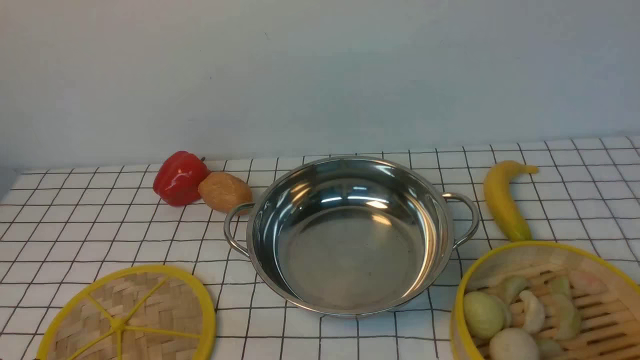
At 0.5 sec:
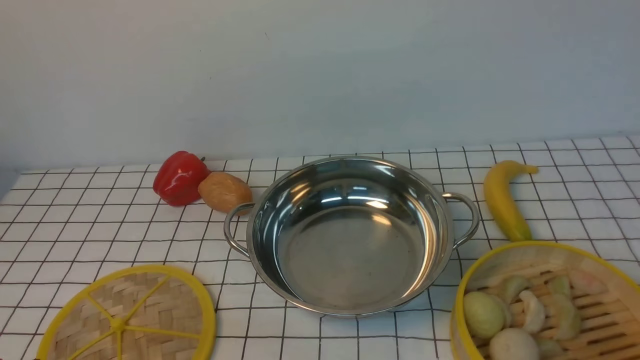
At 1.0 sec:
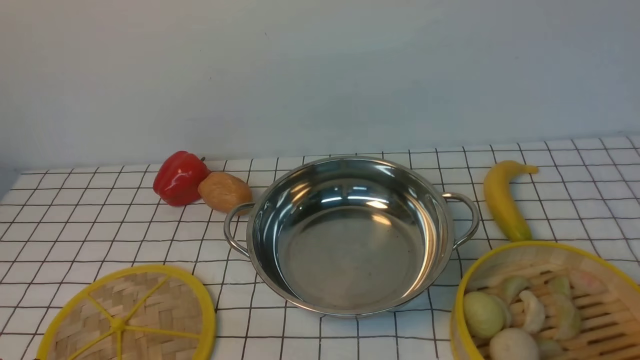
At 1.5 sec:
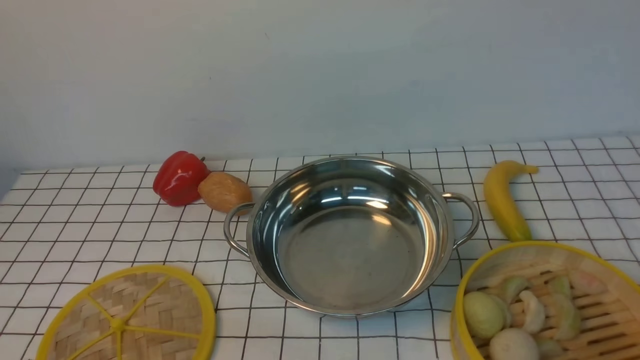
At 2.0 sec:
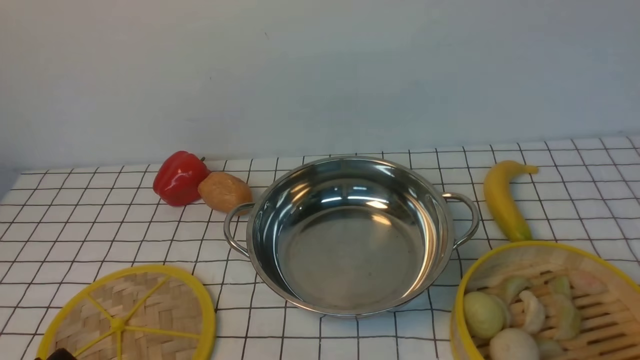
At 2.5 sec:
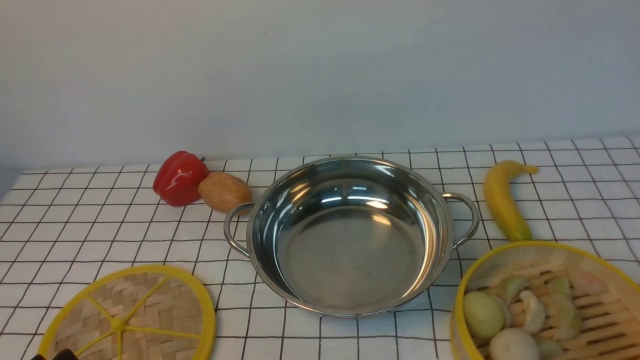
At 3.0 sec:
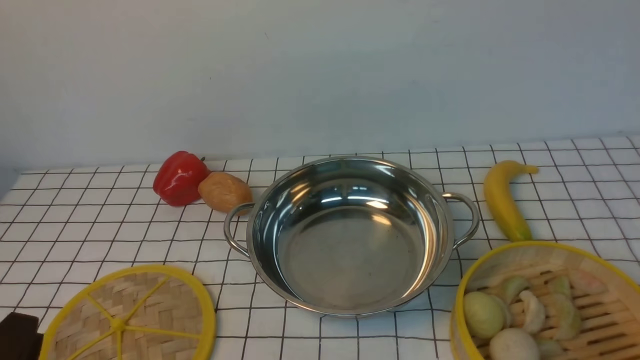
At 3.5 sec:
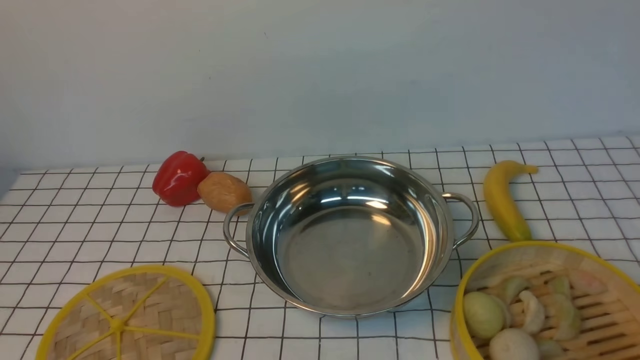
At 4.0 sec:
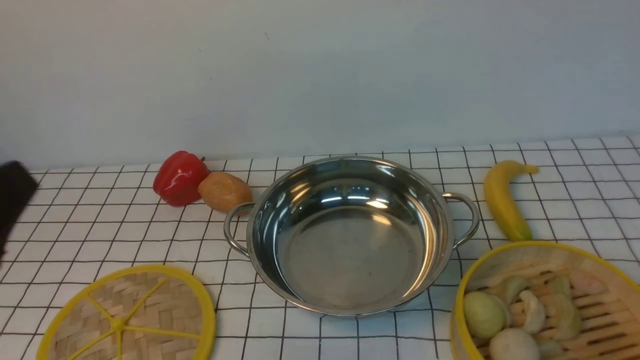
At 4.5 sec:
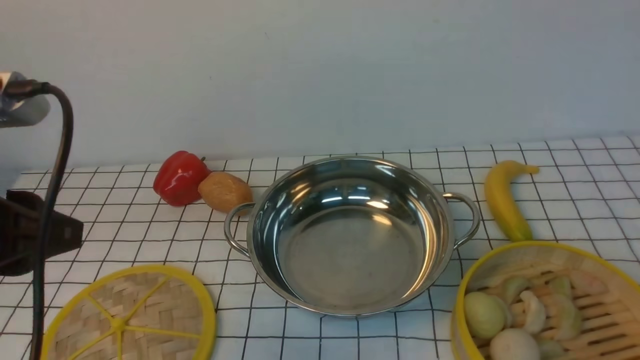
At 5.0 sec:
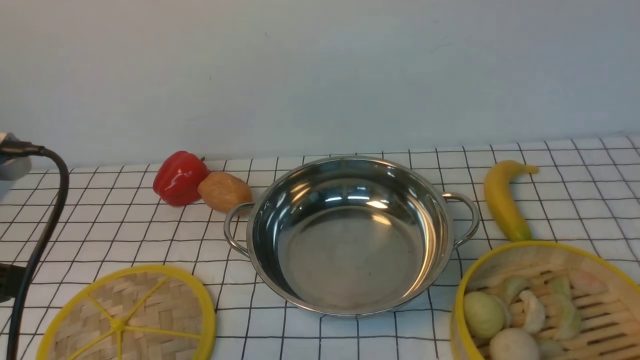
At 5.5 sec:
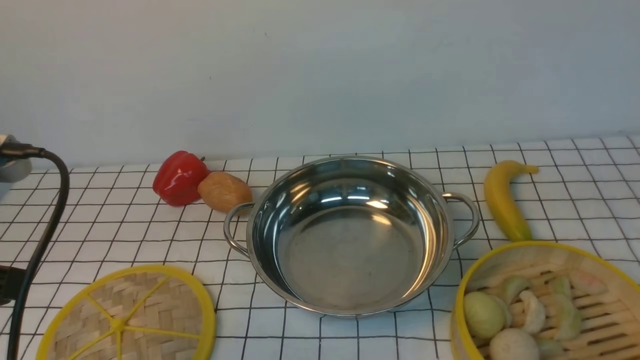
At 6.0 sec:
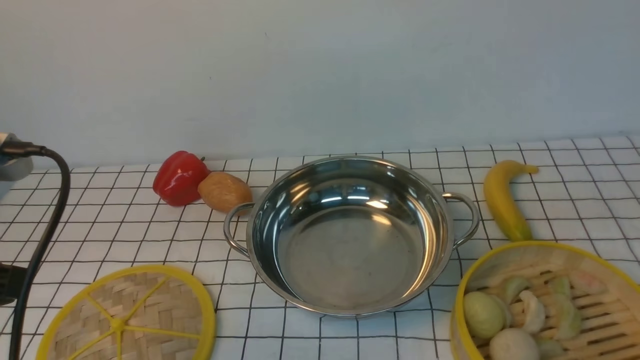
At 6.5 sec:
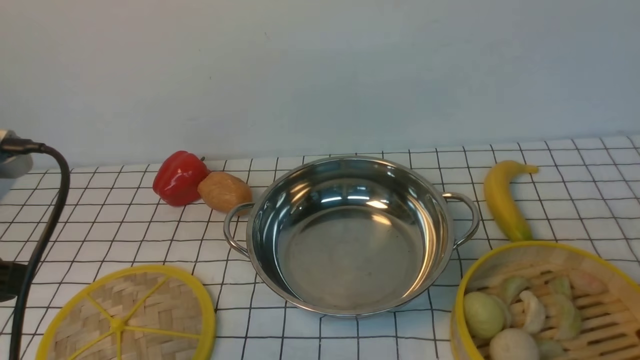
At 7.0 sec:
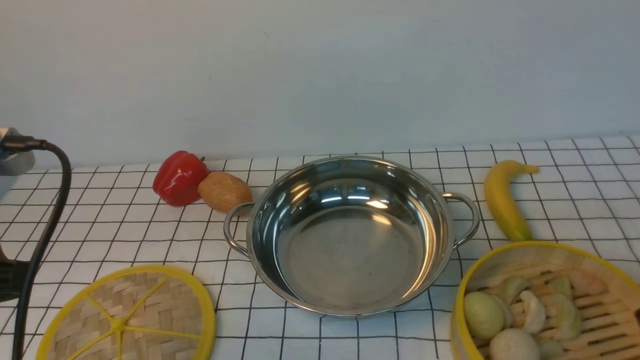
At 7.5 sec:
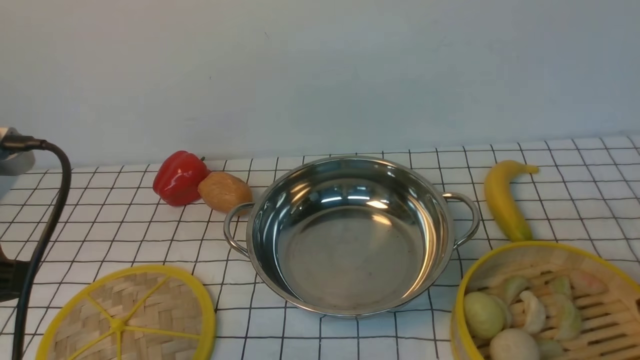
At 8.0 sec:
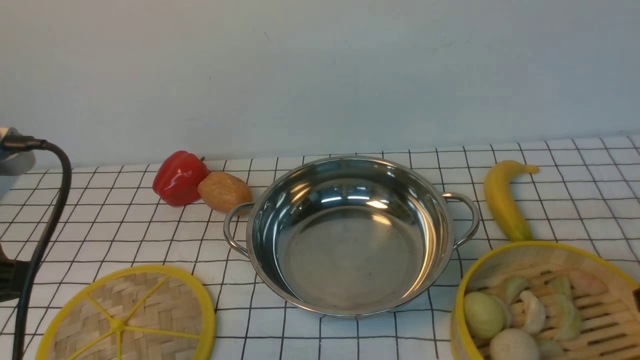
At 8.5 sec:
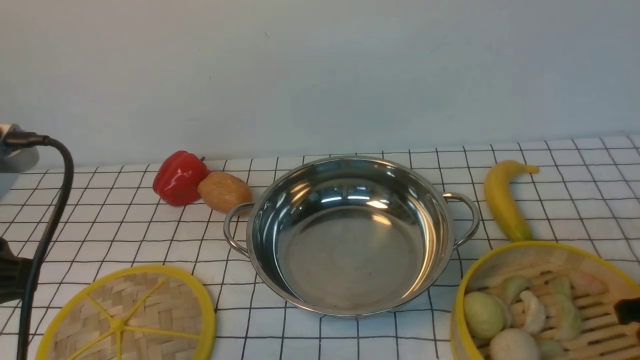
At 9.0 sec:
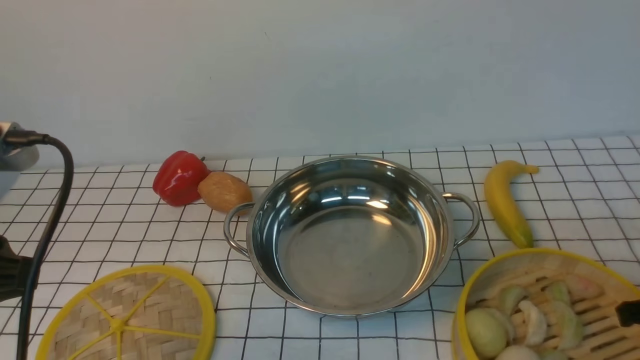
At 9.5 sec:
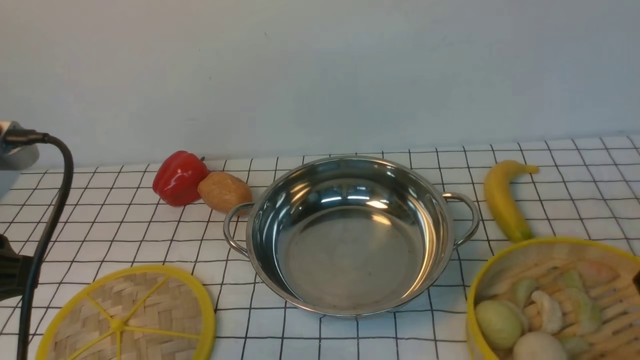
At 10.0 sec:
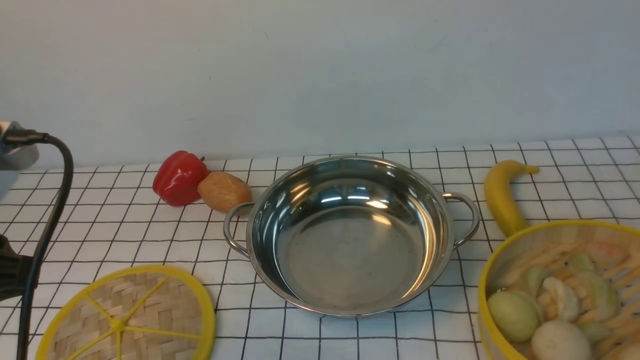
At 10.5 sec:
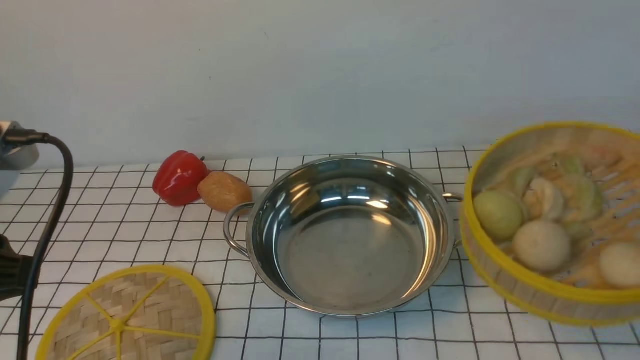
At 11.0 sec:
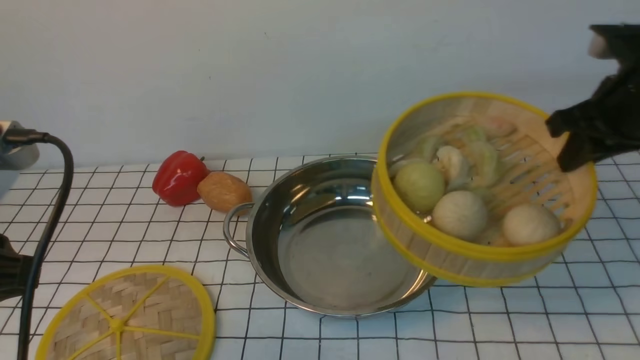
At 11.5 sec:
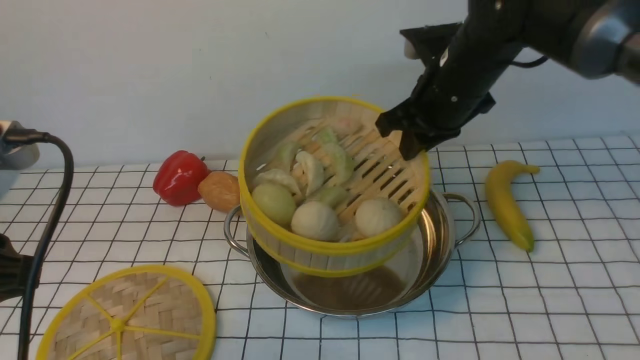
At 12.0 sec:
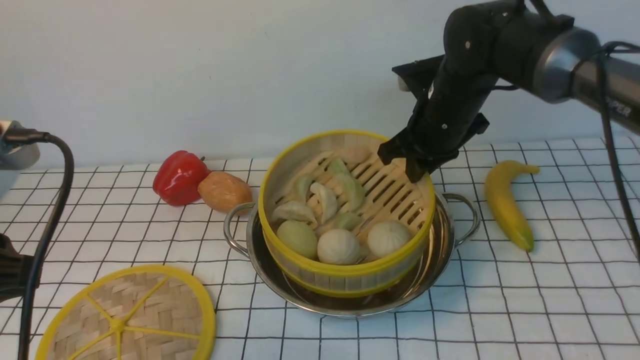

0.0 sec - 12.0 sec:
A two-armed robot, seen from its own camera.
Task of the whole recording: place the steamer in the pot on the white tablecloth, and put the lid on the steamer.
Step, 0.0 sec - 9.5 sec: use the right arm to lift the steamer closest to it.
2.0 sec - 4.0 sec: The left gripper shifts some 15 cm upward.
4.0 sec - 6.0 sec: The left gripper moves some 5 cm.
8.0 sec - 10.0 sec: The right gripper moves approximately 5 cm, and closes up.
10.0 sec - 12.0 sec: The right gripper travels to the left and forward by approximately 30 cm.

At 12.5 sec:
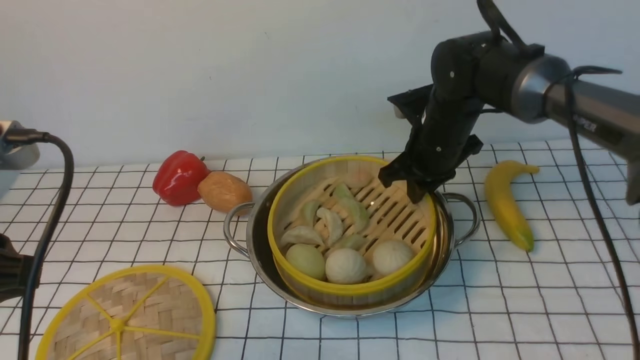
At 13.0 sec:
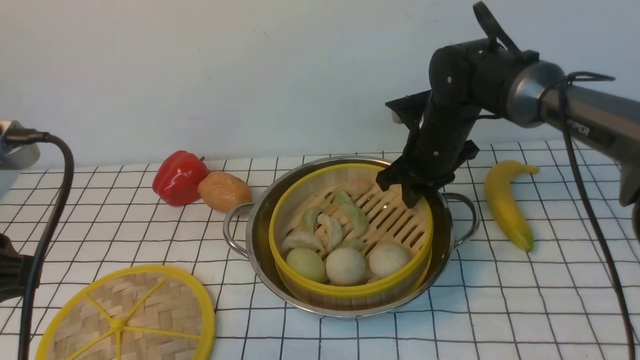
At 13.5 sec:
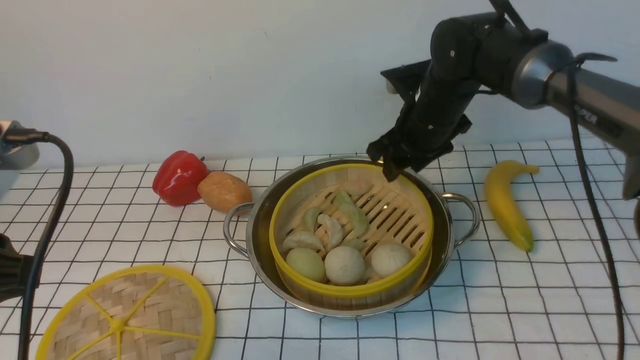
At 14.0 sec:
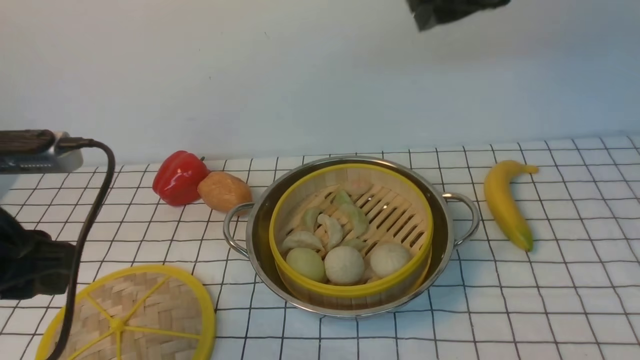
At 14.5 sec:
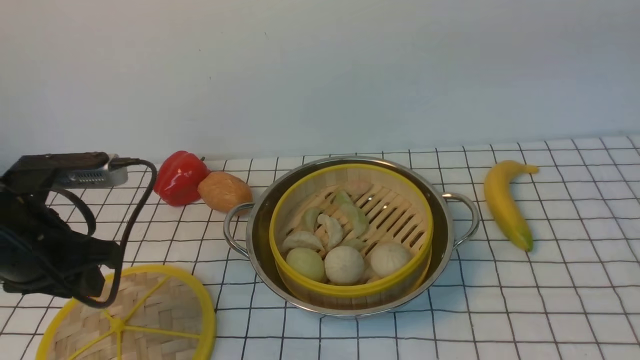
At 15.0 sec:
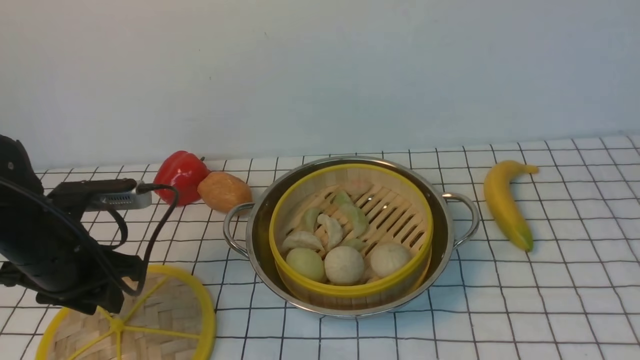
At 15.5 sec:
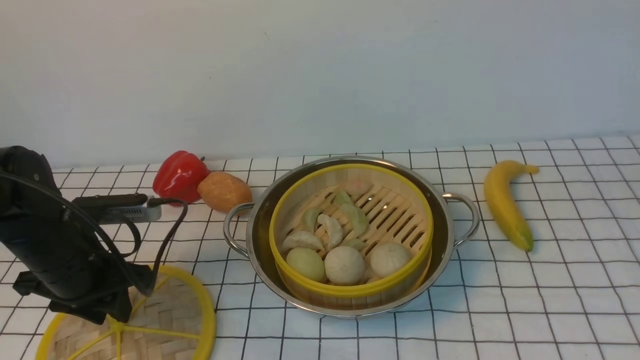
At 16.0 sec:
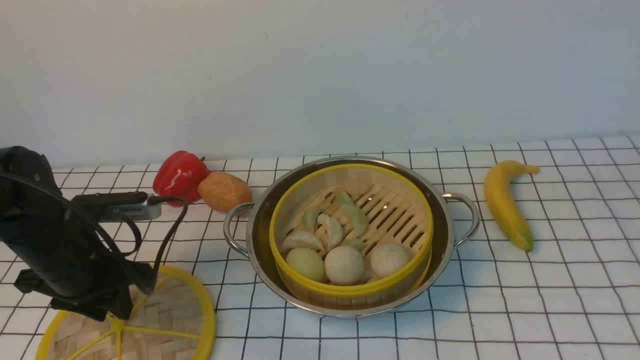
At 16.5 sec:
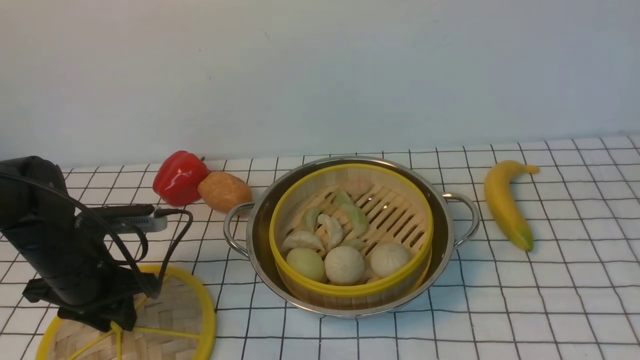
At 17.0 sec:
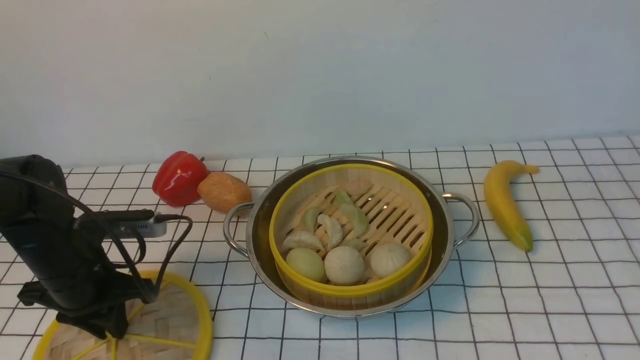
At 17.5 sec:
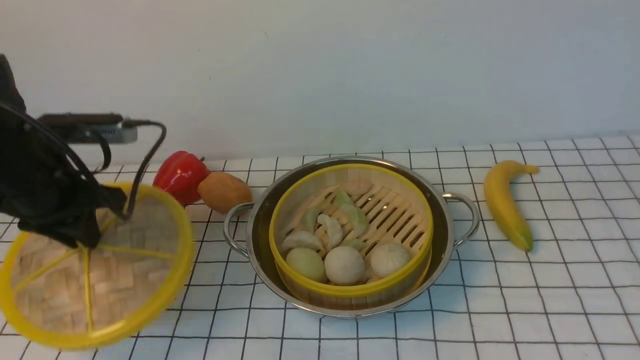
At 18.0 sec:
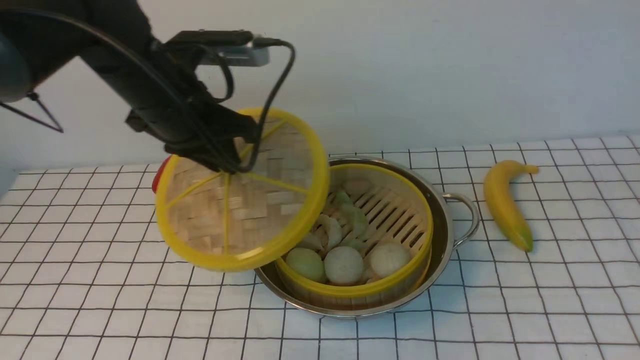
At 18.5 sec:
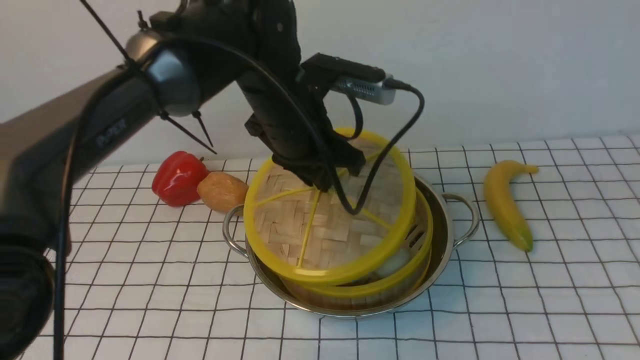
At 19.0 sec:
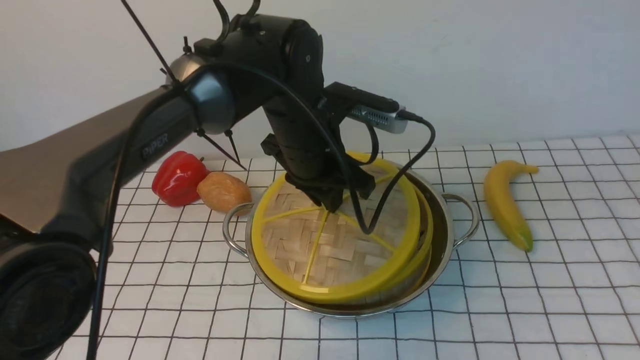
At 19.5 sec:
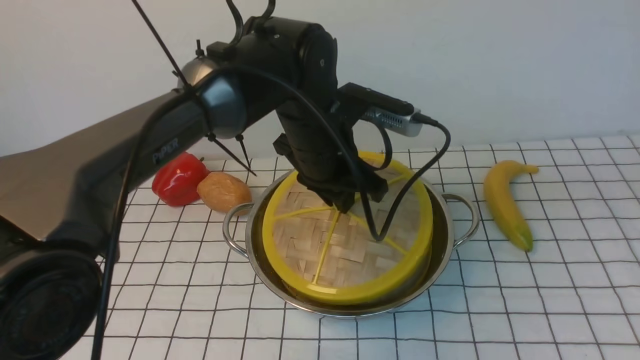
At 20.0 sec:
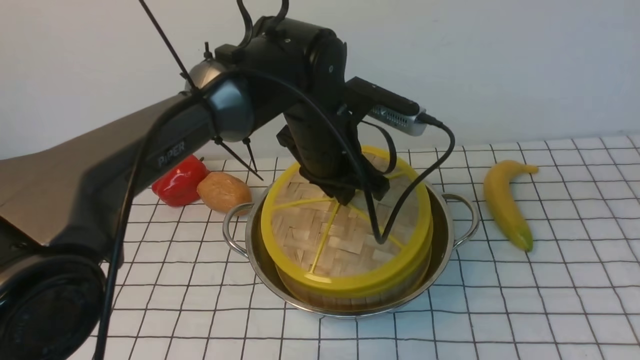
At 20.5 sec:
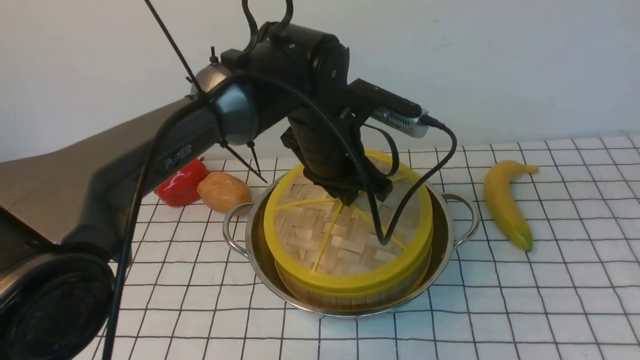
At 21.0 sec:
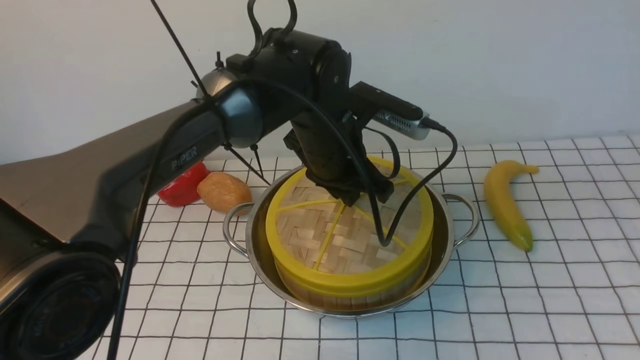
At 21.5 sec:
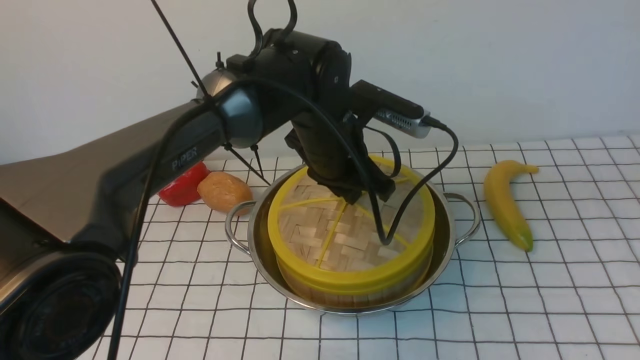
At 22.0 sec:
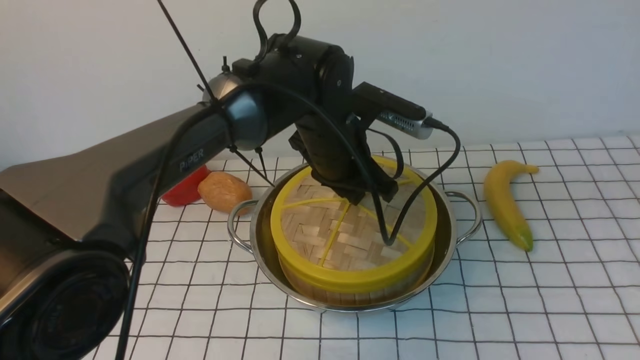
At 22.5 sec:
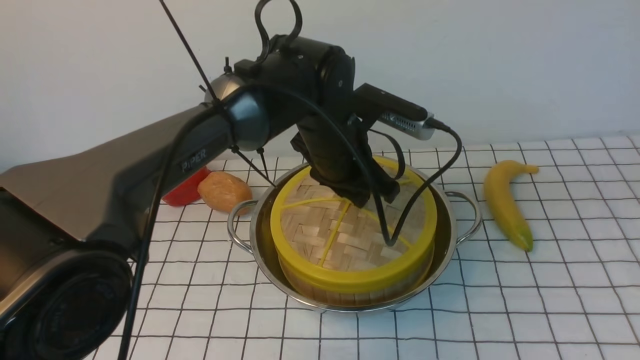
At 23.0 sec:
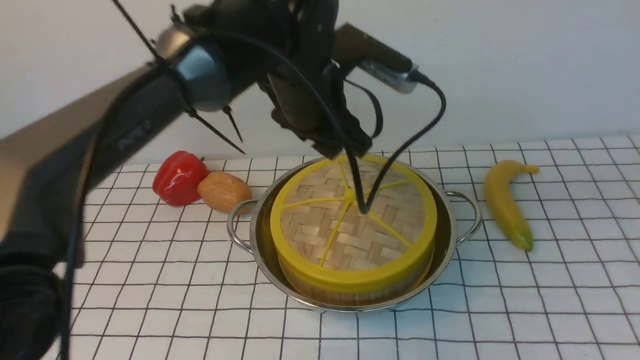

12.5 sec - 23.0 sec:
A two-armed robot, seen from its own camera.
Task of the whole recording: place the steamer in the pot on the white tablecloth, and put the lid on the steamer.
Step, 14.0 sec - 17.0 sec: use the left arm to lift the lid of the steamer.
Step, 17.5 sec - 22.5 sec: use the left arm to place the steamer lid on the steamer.
12.5 sec - 14.5 sec: The left gripper goes some 15 cm forward and downward; the right gripper heads upward, backward and to the right, covering approximately 40 cm, and opens and closes again.
14.5 sec - 16.5 sec: The left gripper travels downward by approximately 10 cm.
16.5 sec - 19.0 sec: The left gripper goes roughly 25 cm to the right.
19.0 sec - 21.0 sec: The grippers make only small movements.
21.0 sec - 23.0 sec: The left gripper moves upward, roughly 10 cm, and opens up.
